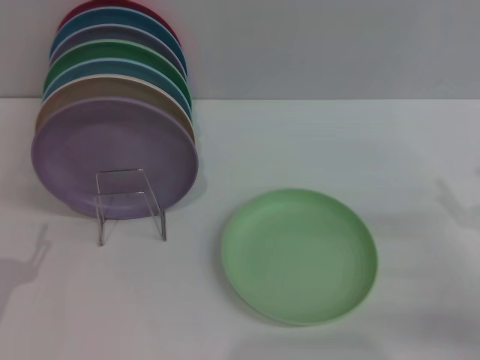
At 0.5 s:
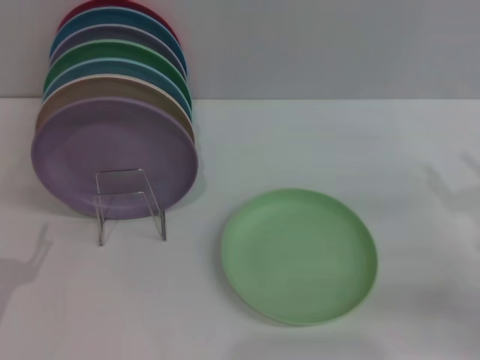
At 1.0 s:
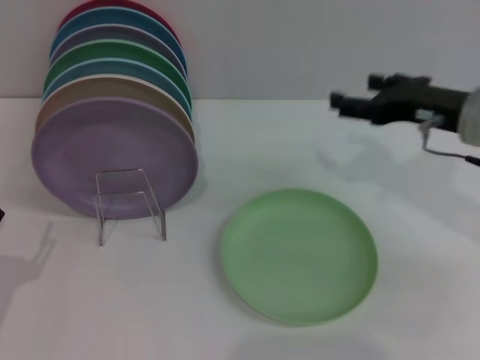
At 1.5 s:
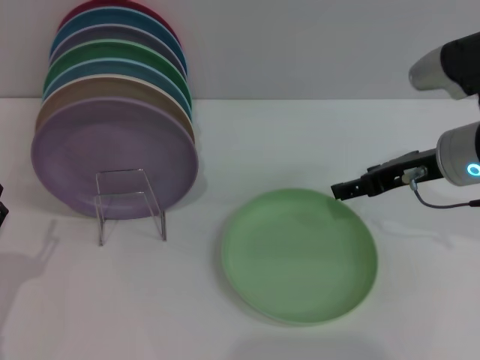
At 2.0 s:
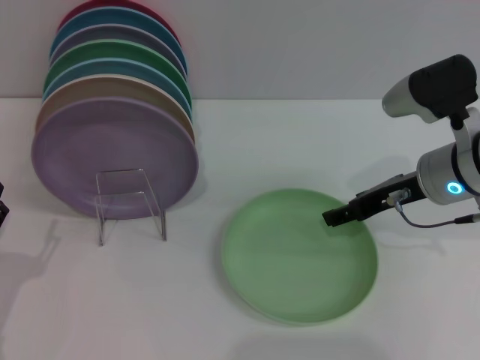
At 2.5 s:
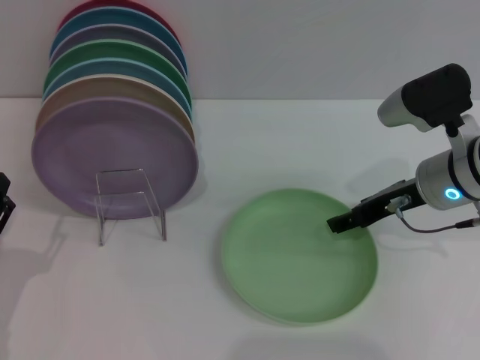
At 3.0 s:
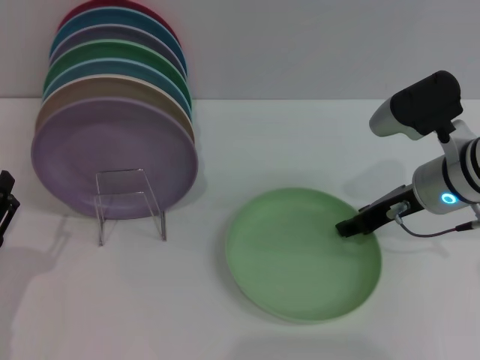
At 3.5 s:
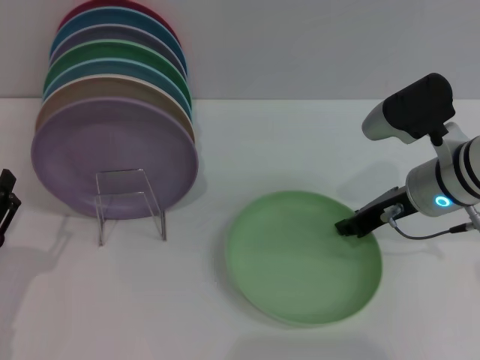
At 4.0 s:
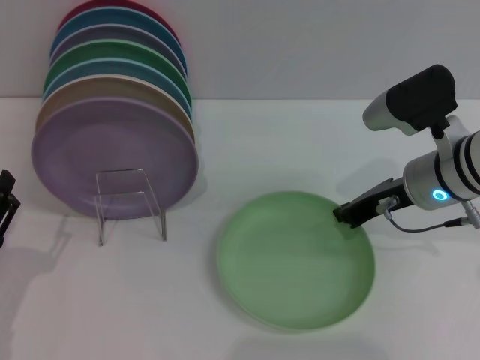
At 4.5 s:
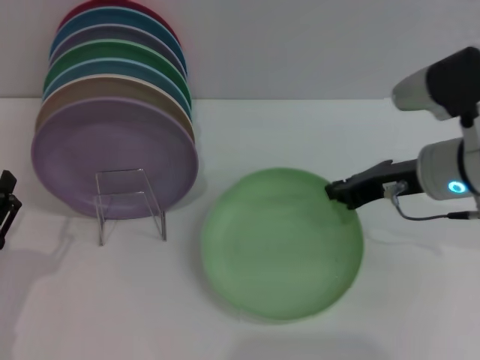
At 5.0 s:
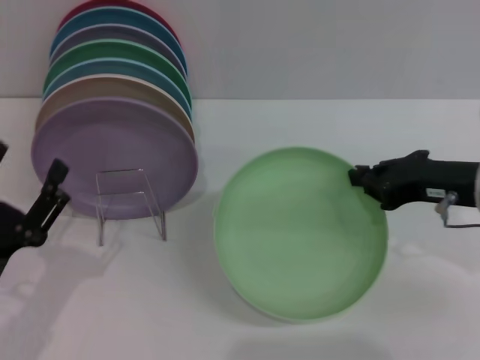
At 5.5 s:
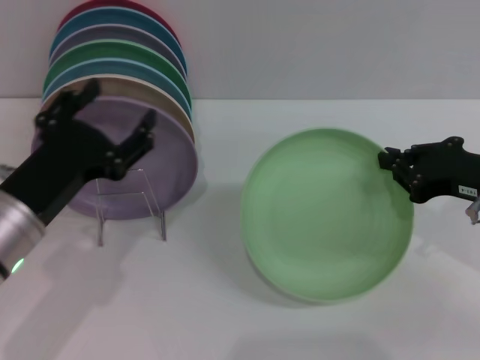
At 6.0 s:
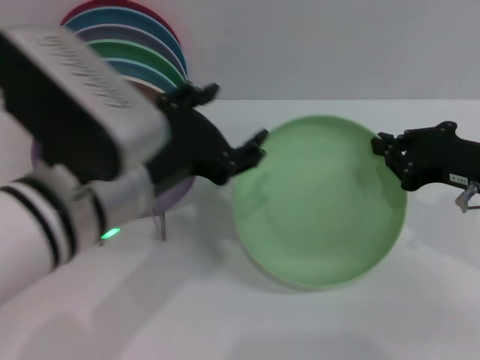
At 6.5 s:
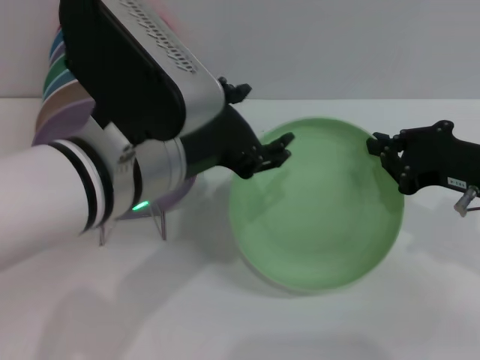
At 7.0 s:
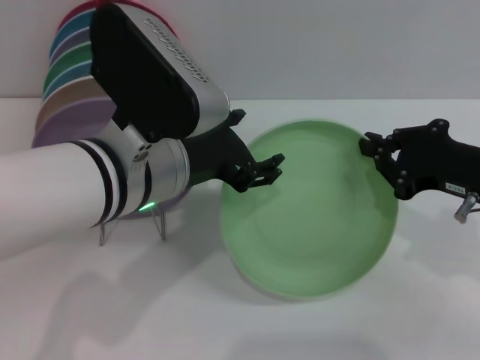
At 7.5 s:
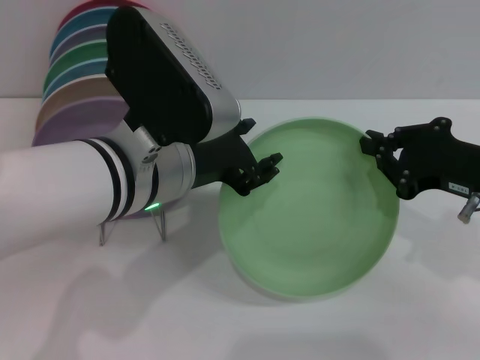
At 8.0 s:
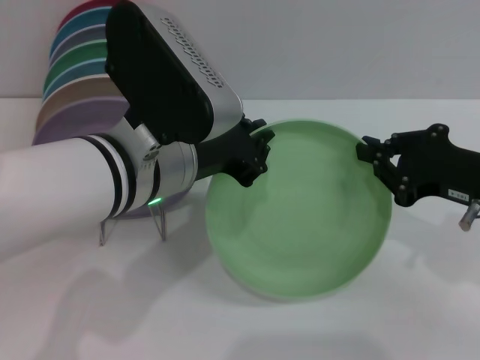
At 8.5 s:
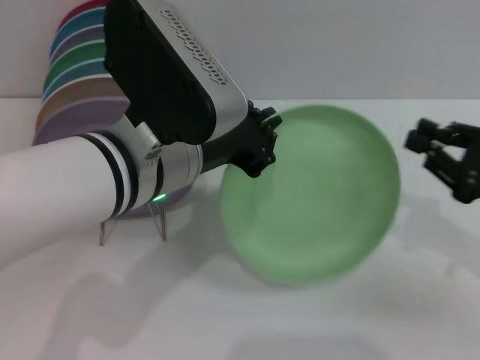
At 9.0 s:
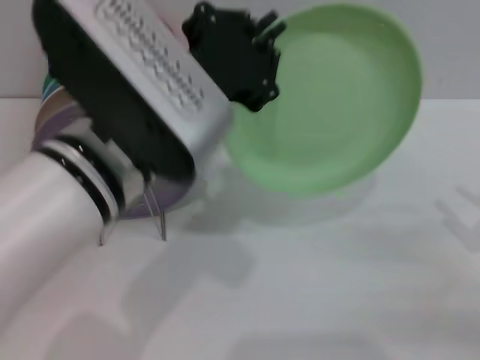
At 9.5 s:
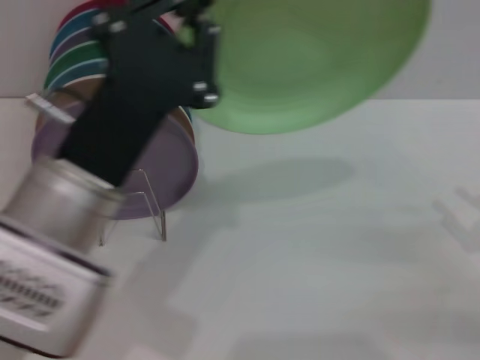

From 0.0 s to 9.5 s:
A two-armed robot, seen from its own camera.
Task of the whole recording: Grip the plate with one hand, pass it to the other, then set it on the shelf.
Step, from 0.0 s to 5.0 s: Pick up the plate with the right gripper.
Step, from 5.5 s to 8.5 s: Pass the plate from the right gripper to the left gripper.
From 0.0 s to 2.0 s: The right gripper moves forward, to the left and upward, about 20 cm.
From 2.0 s to 4.0 s: The right gripper closes up.
From 4.0 s to 5.5 s: The left gripper heads upward, to the right and forward, covering roughly 15 cm; the right gripper is displaced to the right and backward by about 10 cm.
From 5.5 s to 7.5 s: The left gripper moves to the right and upward, approximately 15 cm.
From 7.5 s to 9.5 s: The right gripper is displaced to the right, downward and backward by approximately 15 cm, and opens its fingers. Meanwhile the left gripper heads backward, covering roughly 5 cm, and closes up.

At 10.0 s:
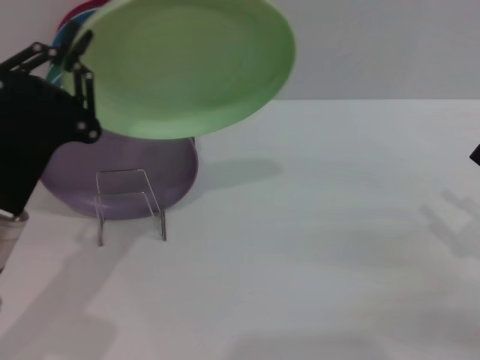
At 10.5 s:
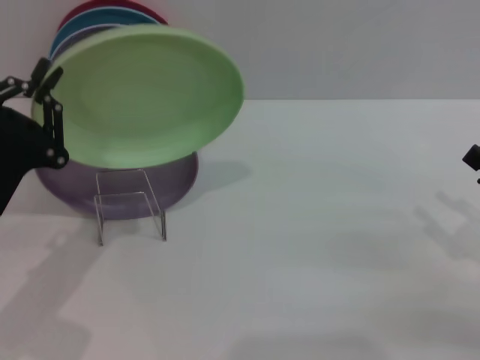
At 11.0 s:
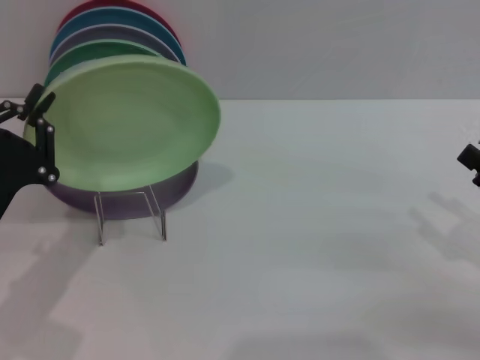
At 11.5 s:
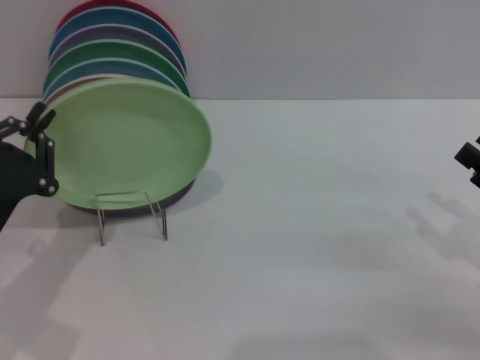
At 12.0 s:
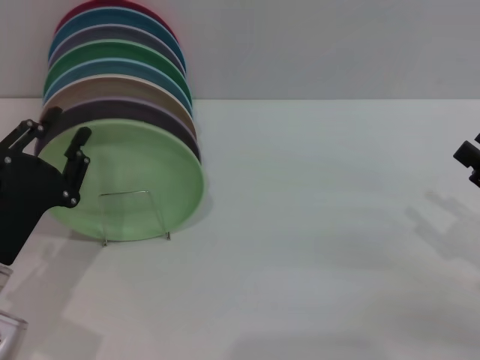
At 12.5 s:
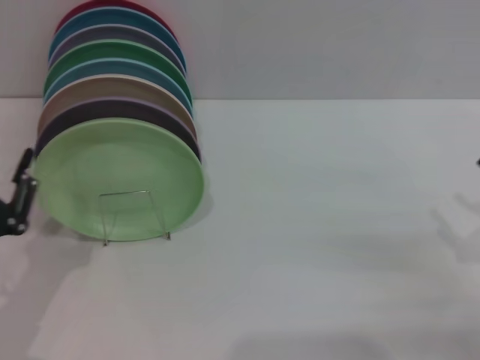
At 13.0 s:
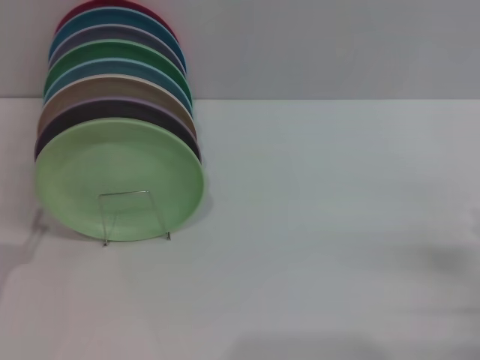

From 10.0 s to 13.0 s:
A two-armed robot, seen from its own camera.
Task of the whole recording: Grip the plate with one hand, pass it to the other, then set it on the shelf.
Step, from 10.0 s to 12.0 s: Place the plate on the shelf with the left gripper.
From 10.0 s to 11.5 s: The left gripper is displaced to the left by roughly 5 cm.
From 11.5 s to 13.0 s: The left gripper shifts roughly 5 cm backward, and opens up; the right gripper ends up approximately 5 cm from where it was.

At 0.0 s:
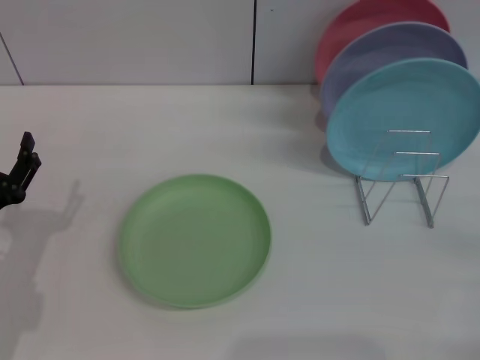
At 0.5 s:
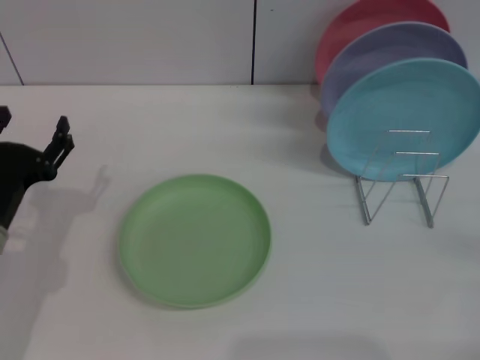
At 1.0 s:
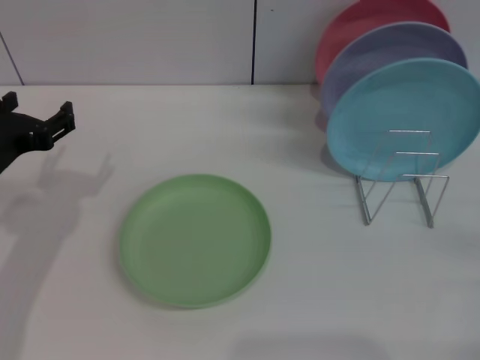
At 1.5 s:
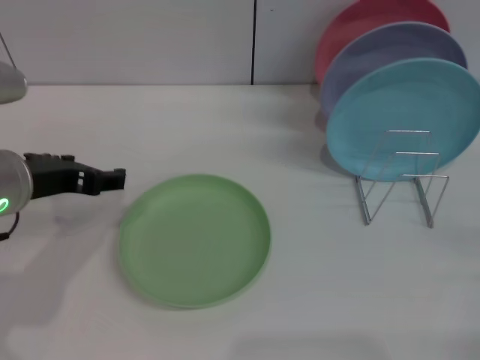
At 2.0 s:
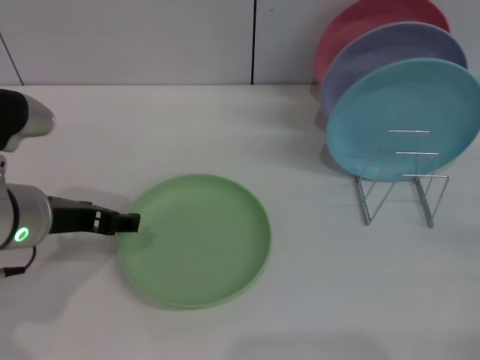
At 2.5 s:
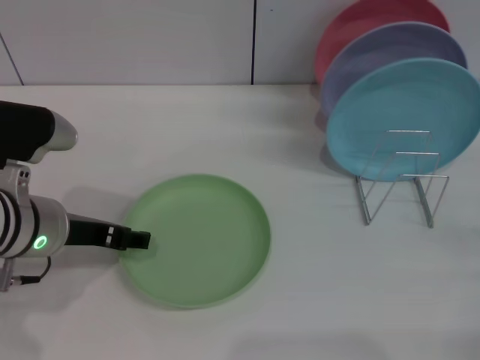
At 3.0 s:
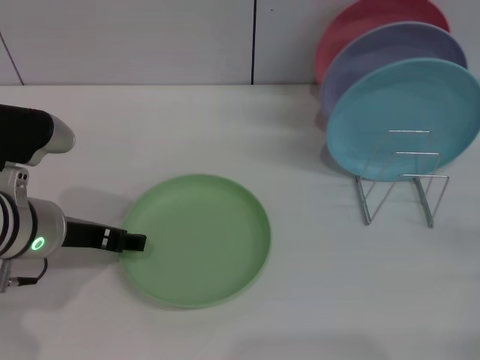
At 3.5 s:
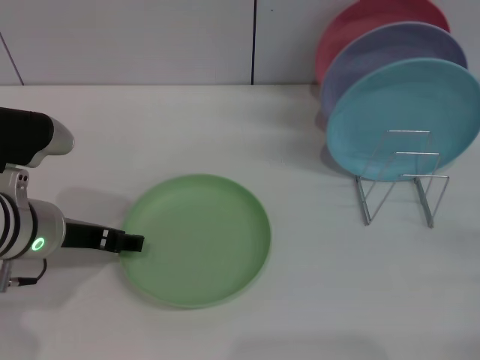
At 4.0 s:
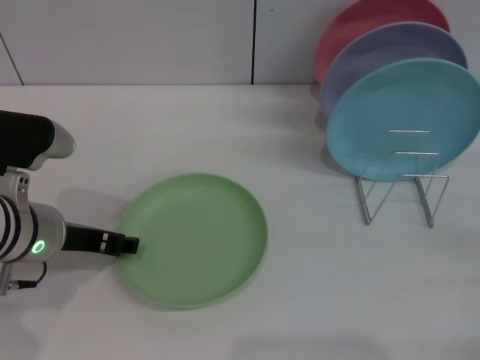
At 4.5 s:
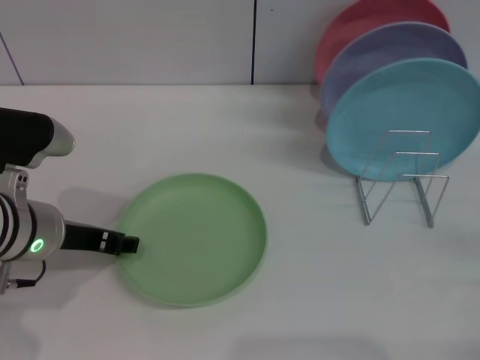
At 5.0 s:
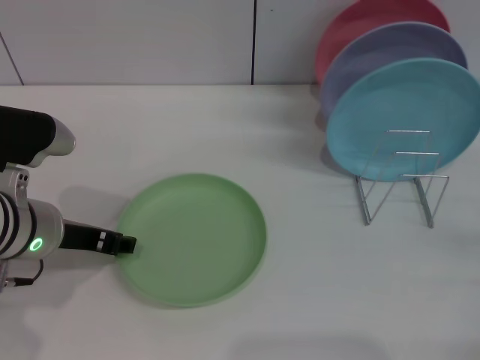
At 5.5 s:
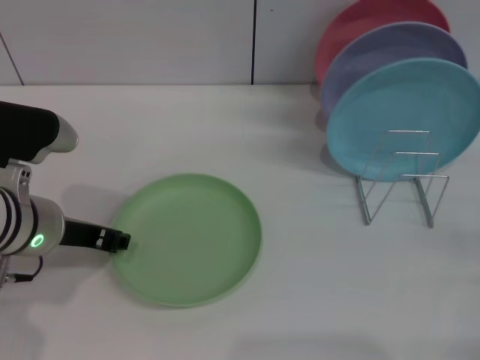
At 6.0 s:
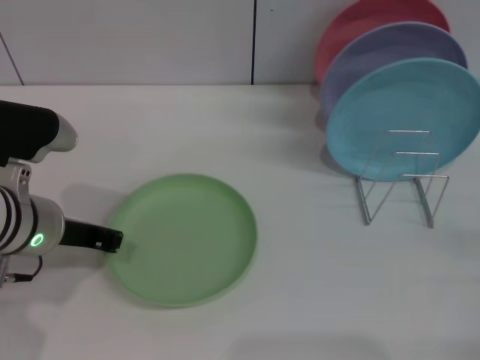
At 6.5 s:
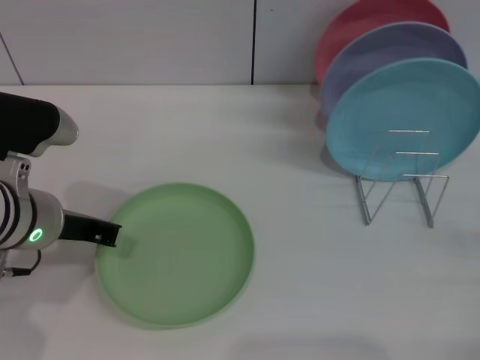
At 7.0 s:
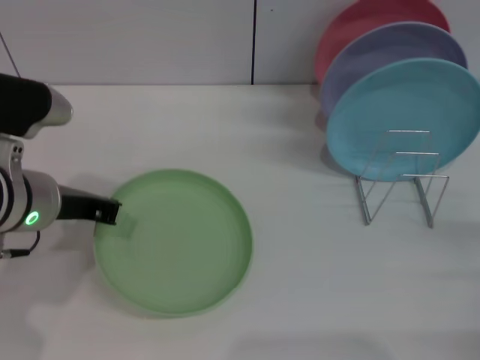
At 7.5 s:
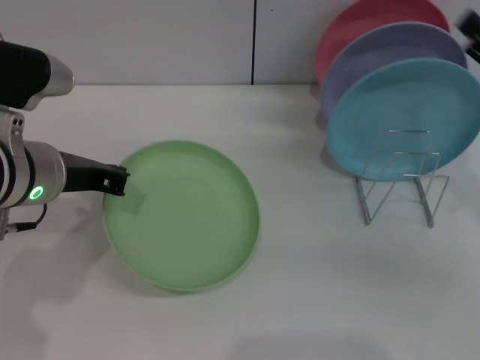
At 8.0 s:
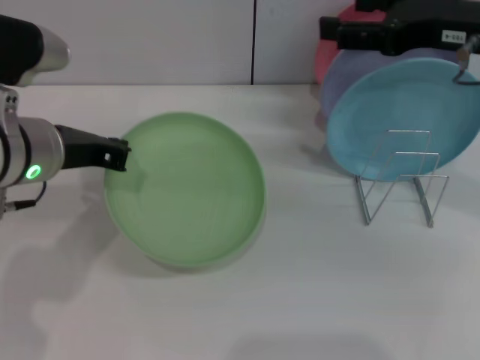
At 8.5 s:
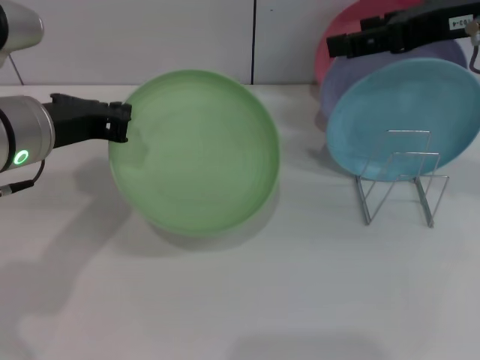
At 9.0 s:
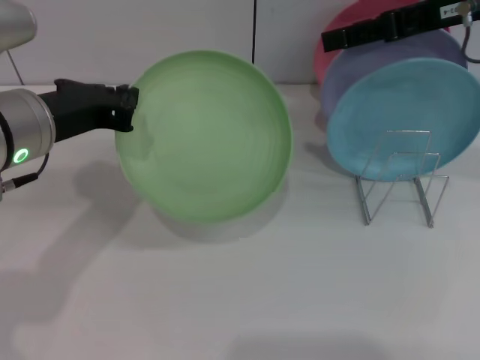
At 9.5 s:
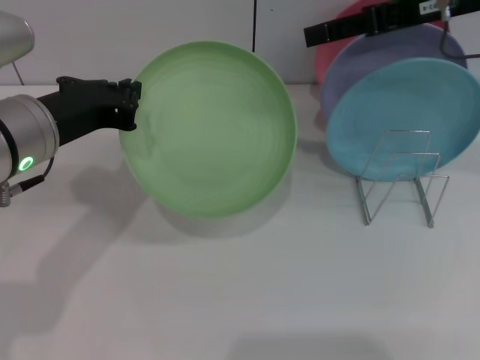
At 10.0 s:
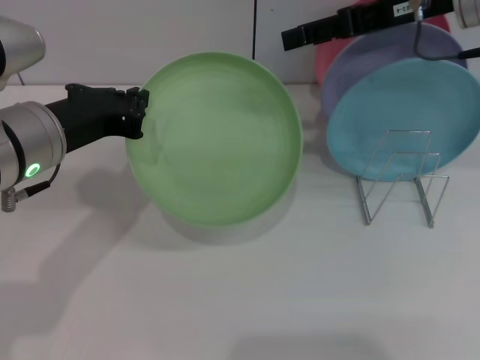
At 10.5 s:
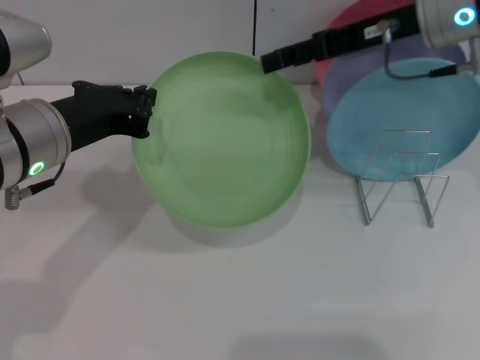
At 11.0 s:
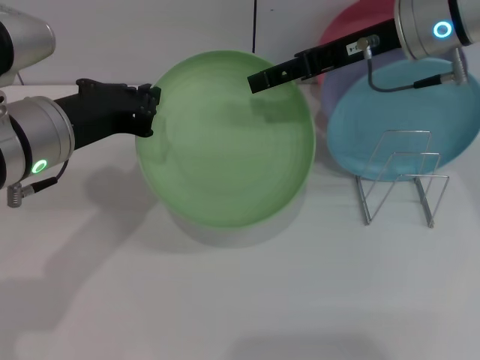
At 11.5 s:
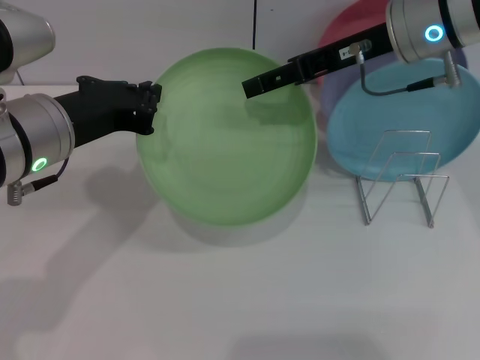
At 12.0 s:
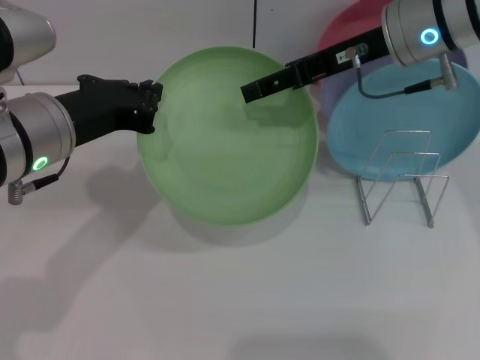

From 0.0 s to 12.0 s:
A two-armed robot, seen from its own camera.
Task of the whole recording: Grip the plate with one hand, pass it to the other, then set it on the shelf.
Step, from 0.0 s to 8.5 s: Pick up the plate with the left gripper.
From 0.0 s to 2.0 s: The left gripper heads upward, to the right and forward, covering approximately 15 cm.
From 2.0 s to 4.0 s: The grippers stay close to where they were, moving slightly.
From 4.0 s to 6.0 s: The left gripper closes up.
From 6.0 s to 8.0 s: The left gripper is displaced upward by approximately 5 cm, and closes its fingers; the right gripper is displaced upward, forward and to the left by about 30 cm.
From 8.0 s to 10.0 s: The right gripper shifts approximately 5 cm forward.
From 10.0 s to 12.0 s: The right gripper shifts by approximately 5 cm.
